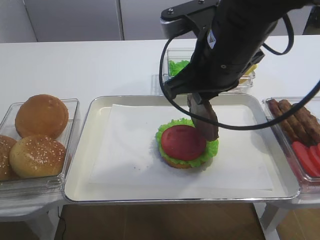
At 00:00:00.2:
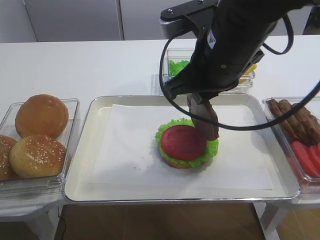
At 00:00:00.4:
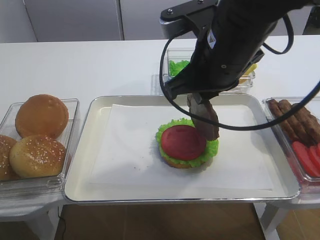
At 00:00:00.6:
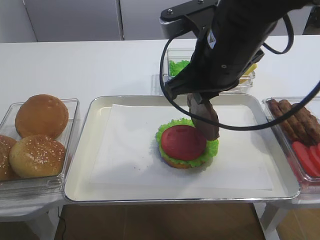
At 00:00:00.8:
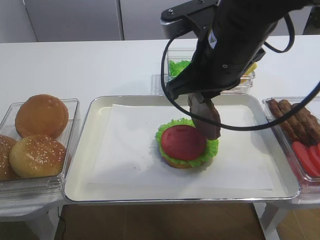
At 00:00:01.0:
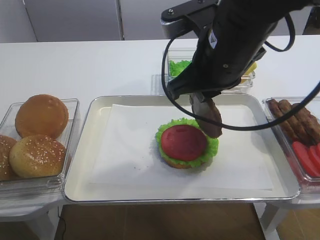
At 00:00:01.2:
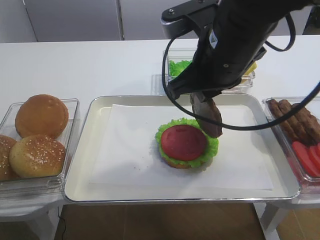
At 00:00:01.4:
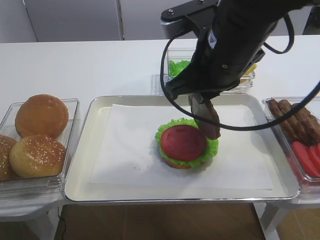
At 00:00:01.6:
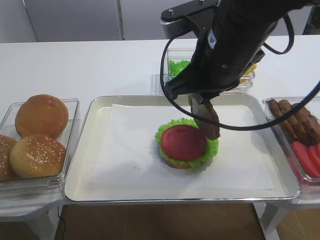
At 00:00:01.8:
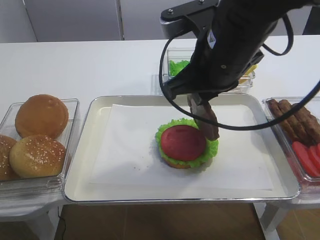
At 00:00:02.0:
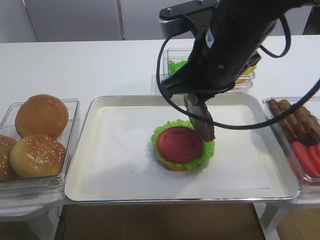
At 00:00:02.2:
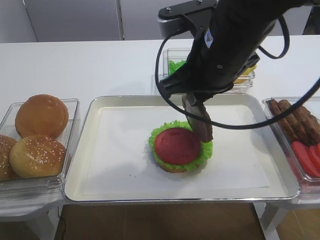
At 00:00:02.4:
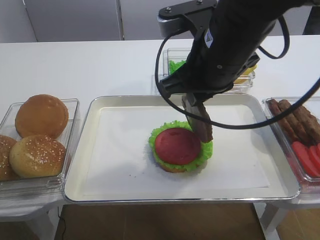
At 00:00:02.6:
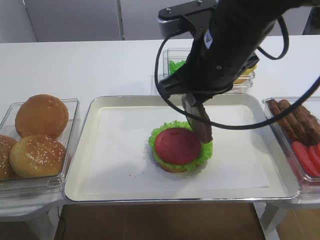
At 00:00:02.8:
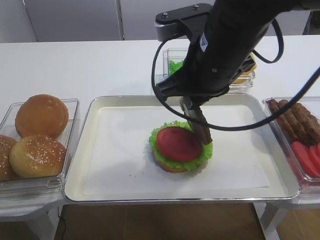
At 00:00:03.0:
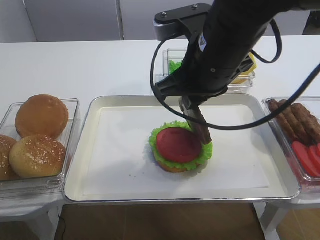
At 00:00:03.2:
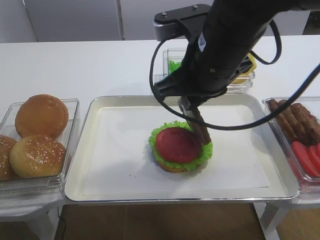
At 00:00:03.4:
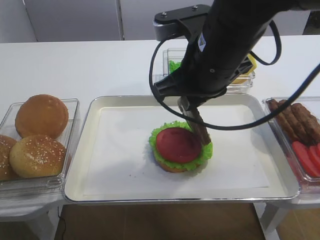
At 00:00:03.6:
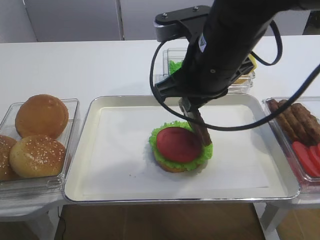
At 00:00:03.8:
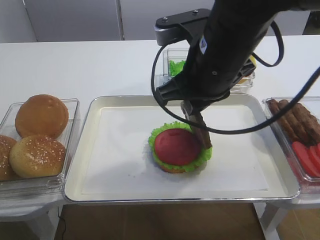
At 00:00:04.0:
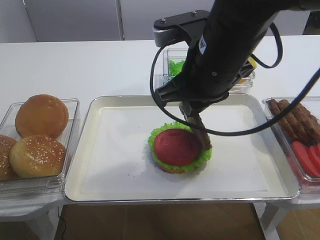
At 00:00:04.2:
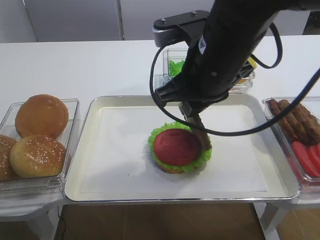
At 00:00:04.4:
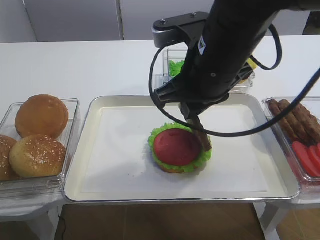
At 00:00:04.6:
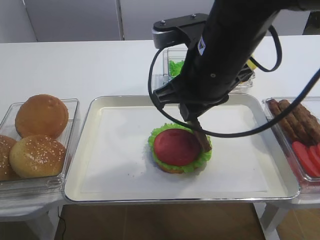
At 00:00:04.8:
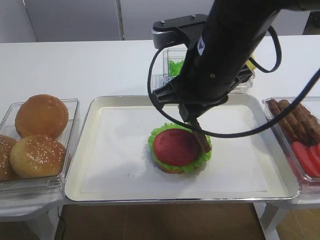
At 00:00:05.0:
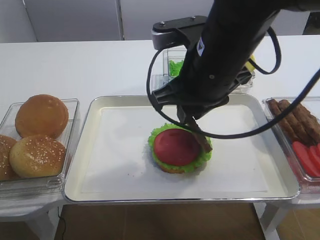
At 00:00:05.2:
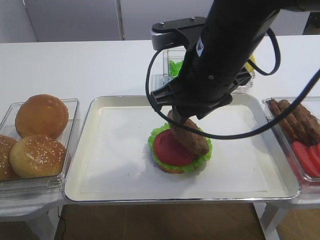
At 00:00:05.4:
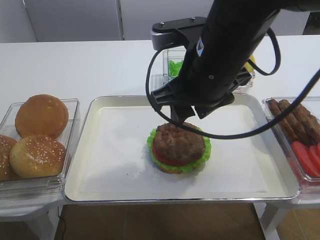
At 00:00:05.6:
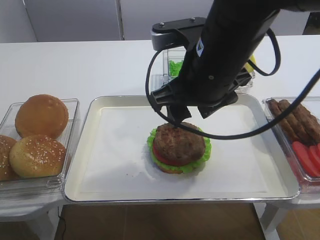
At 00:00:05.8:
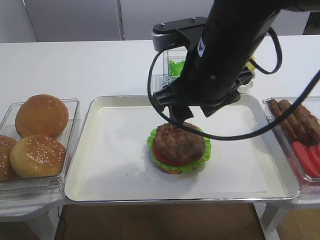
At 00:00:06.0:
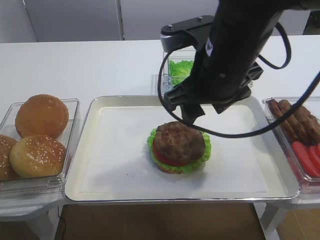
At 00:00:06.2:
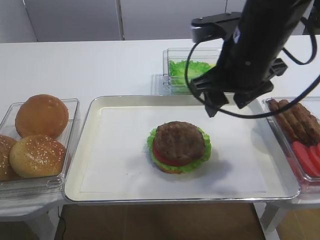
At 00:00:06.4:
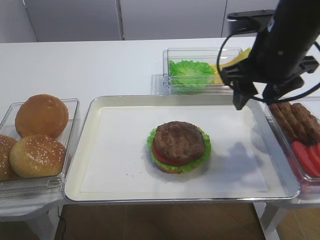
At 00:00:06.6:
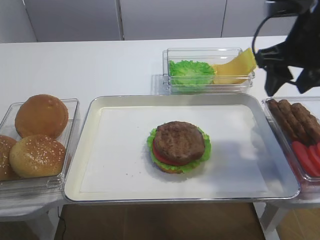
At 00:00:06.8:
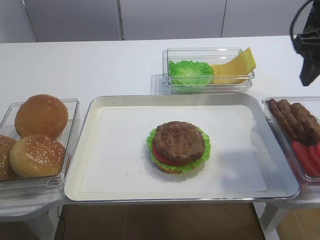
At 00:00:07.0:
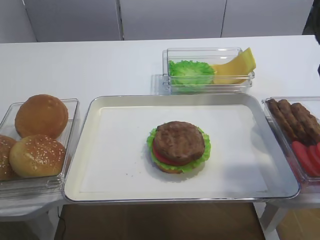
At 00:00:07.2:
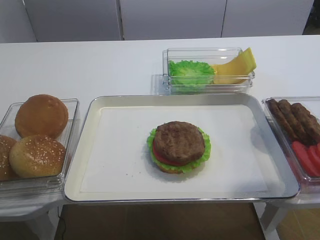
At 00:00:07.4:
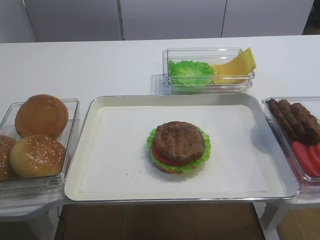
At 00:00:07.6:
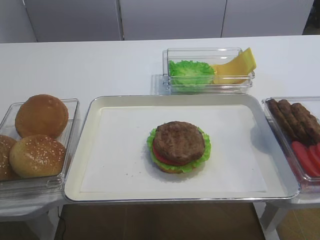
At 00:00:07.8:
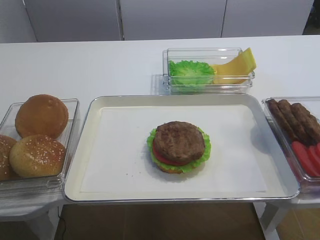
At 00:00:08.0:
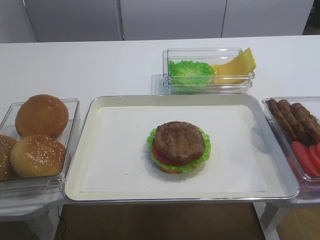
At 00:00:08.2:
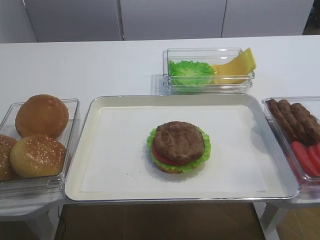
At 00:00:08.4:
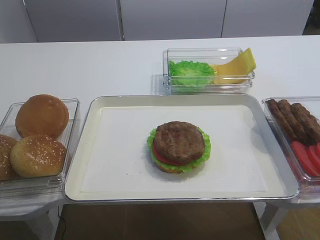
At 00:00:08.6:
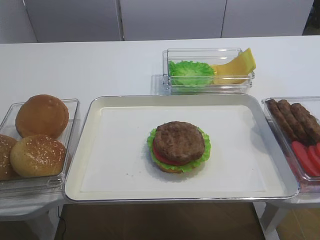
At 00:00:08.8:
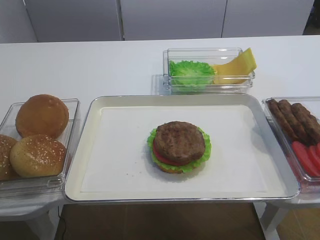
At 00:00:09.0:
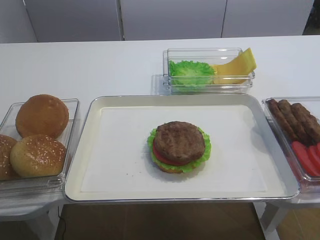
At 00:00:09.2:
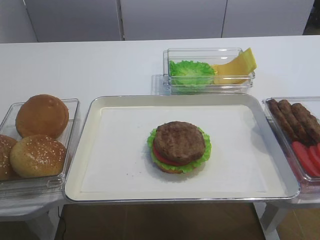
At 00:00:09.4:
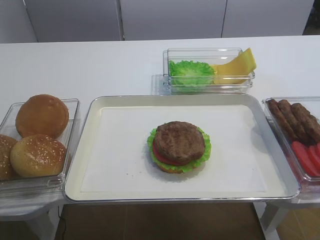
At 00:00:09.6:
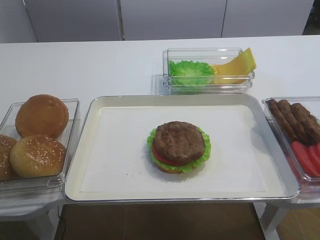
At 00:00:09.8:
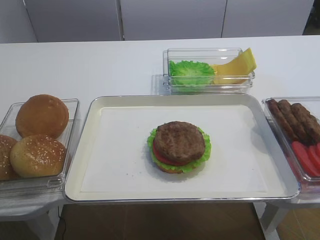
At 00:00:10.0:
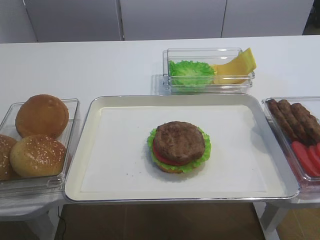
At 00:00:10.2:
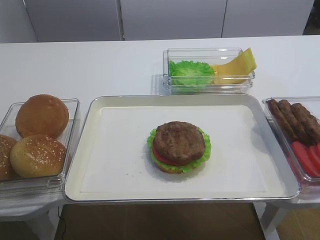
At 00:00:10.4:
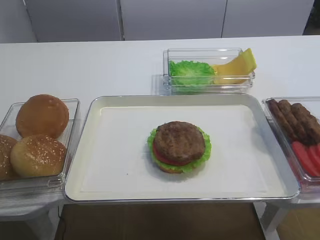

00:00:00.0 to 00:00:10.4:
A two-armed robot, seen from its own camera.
Step, 00:00:00.0 to 00:00:05.8: Place the cutlet on the tomato slice with the right gripper.
00:00:00.0 to 00:00:01.4: Both grippers stay about where they are.
00:00:01.4 to 00:00:03.0: The grippers move only a little.
00:00:03.0 to 00:00:04.4: Neither gripper changes place.
00:00:04.4 to 00:00:06.0: The right gripper opens up.
00:00:06.0 to 00:00:07.4: The right gripper is displaced to the right by approximately 20 cm.
00:00:07.4 to 00:00:09.0: The right gripper shifts roughly 20 cm backward.
00:00:09.0 to 00:00:10.4: Both grippers stay about where they are.

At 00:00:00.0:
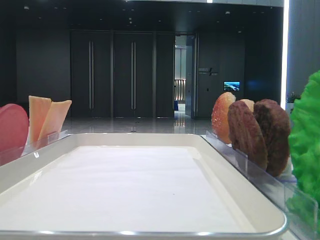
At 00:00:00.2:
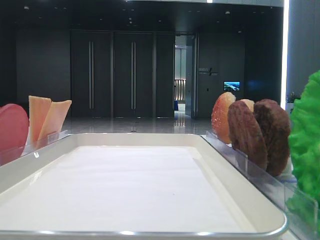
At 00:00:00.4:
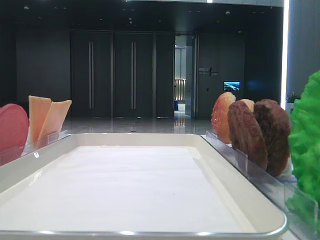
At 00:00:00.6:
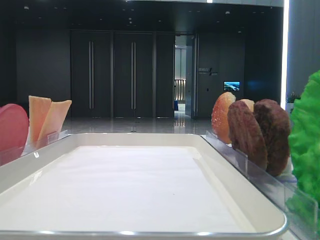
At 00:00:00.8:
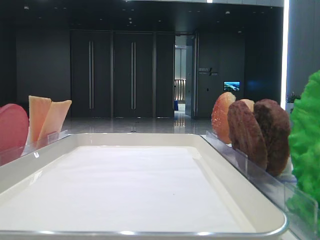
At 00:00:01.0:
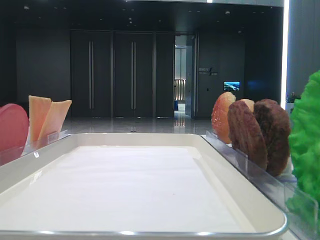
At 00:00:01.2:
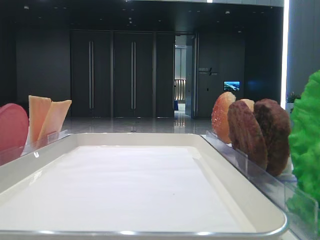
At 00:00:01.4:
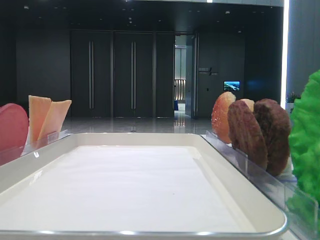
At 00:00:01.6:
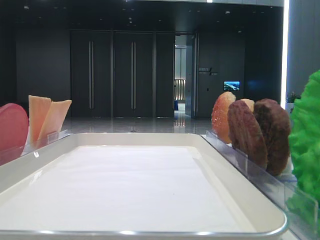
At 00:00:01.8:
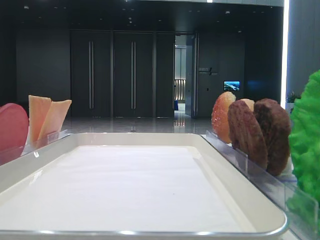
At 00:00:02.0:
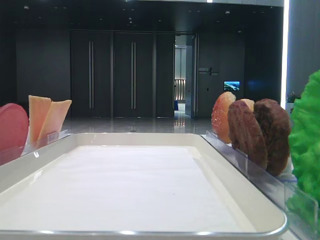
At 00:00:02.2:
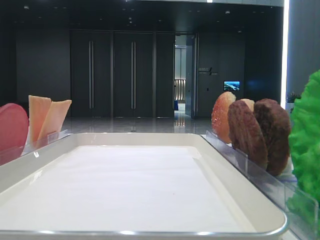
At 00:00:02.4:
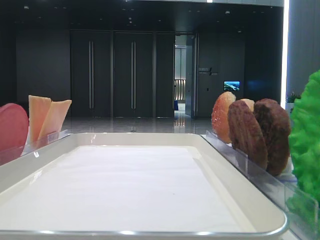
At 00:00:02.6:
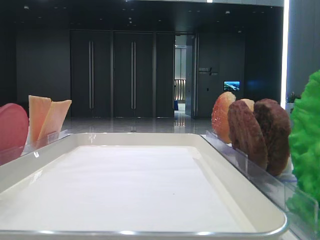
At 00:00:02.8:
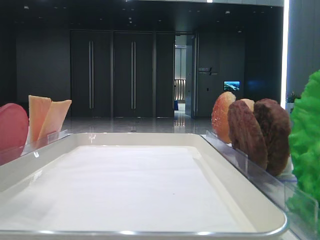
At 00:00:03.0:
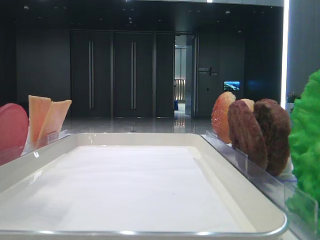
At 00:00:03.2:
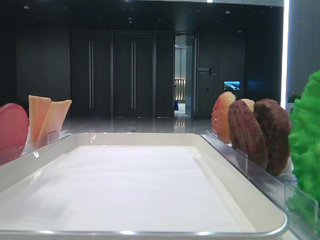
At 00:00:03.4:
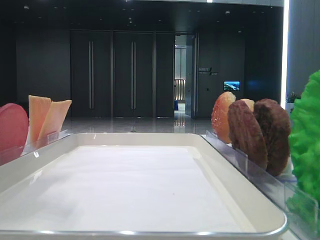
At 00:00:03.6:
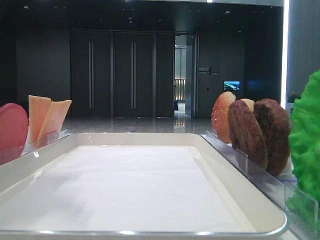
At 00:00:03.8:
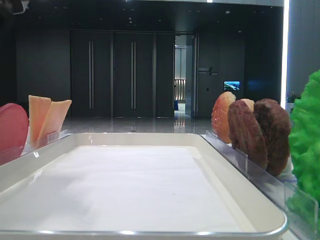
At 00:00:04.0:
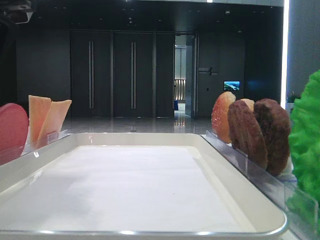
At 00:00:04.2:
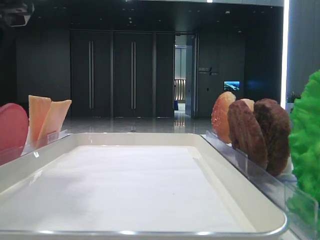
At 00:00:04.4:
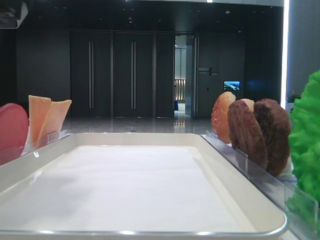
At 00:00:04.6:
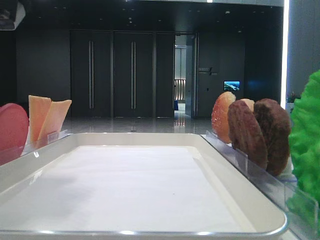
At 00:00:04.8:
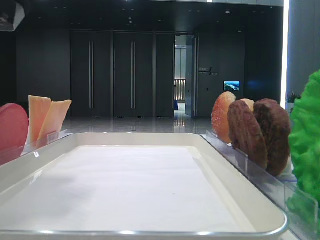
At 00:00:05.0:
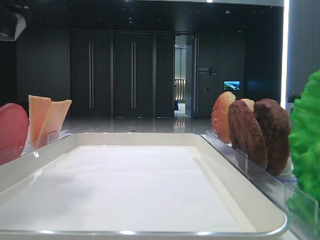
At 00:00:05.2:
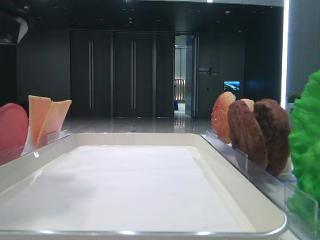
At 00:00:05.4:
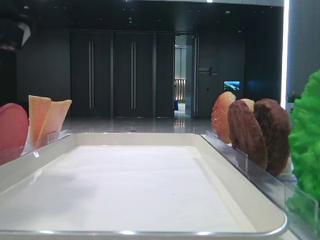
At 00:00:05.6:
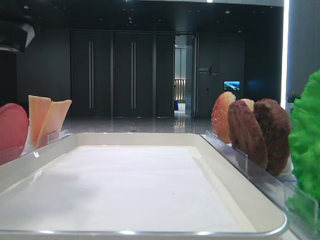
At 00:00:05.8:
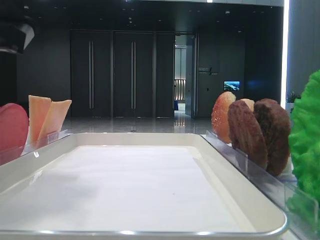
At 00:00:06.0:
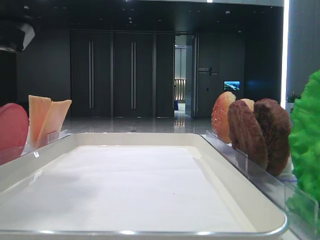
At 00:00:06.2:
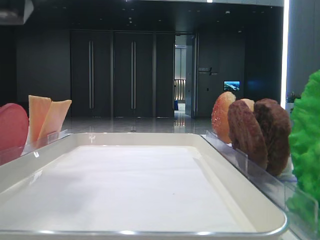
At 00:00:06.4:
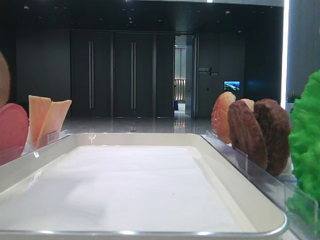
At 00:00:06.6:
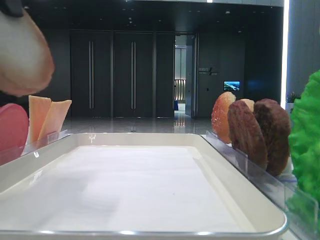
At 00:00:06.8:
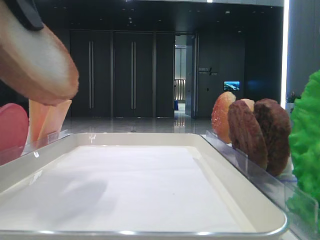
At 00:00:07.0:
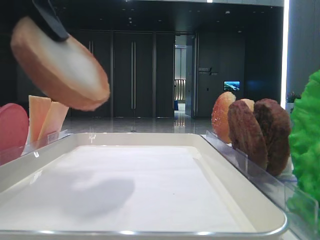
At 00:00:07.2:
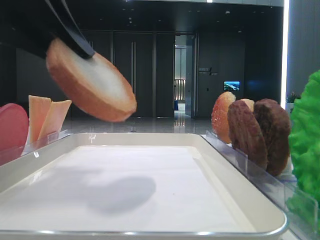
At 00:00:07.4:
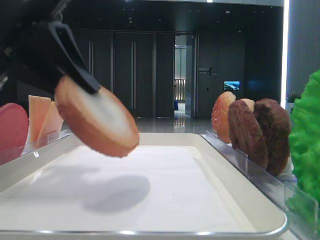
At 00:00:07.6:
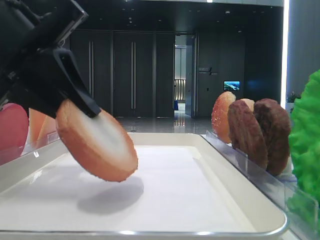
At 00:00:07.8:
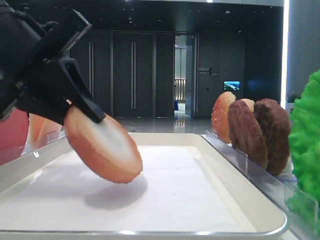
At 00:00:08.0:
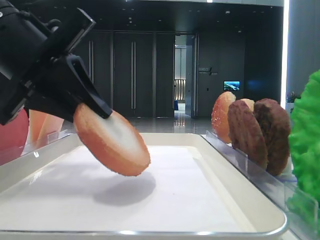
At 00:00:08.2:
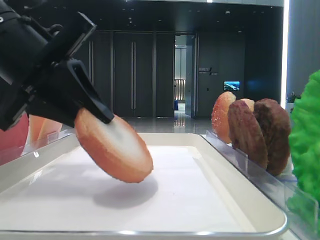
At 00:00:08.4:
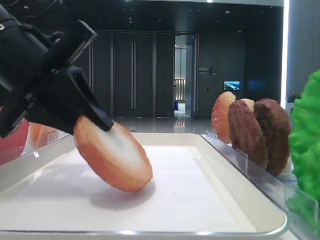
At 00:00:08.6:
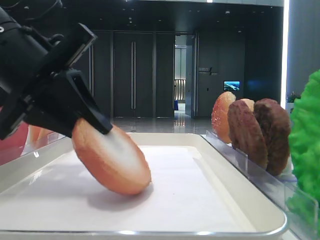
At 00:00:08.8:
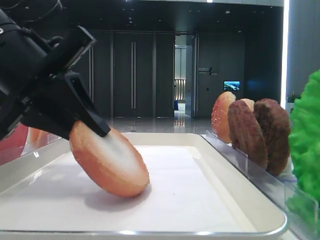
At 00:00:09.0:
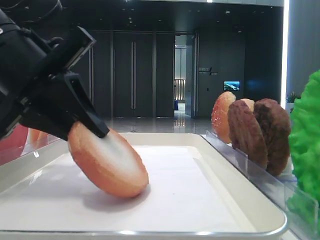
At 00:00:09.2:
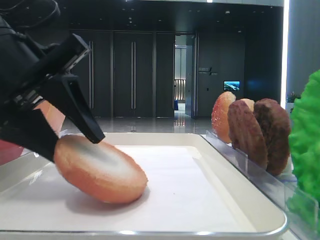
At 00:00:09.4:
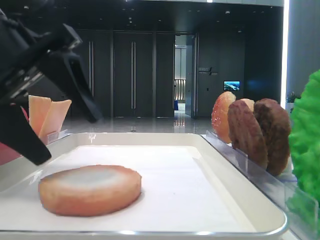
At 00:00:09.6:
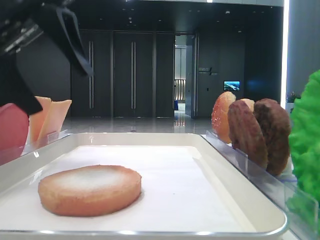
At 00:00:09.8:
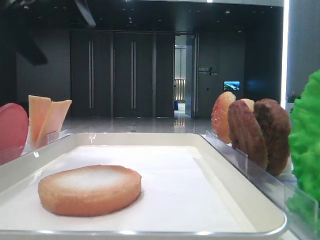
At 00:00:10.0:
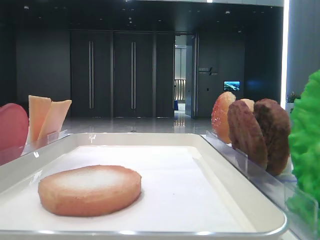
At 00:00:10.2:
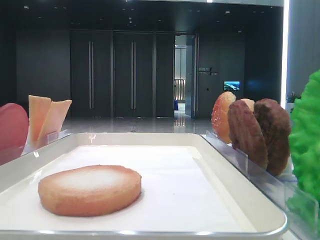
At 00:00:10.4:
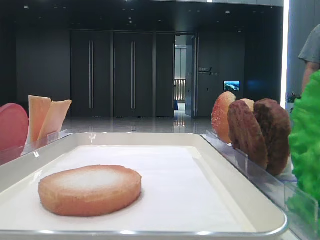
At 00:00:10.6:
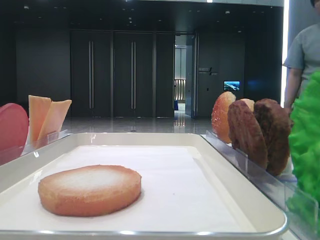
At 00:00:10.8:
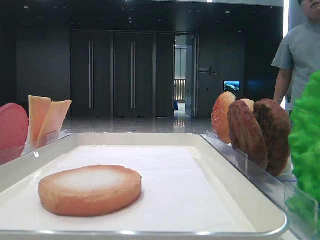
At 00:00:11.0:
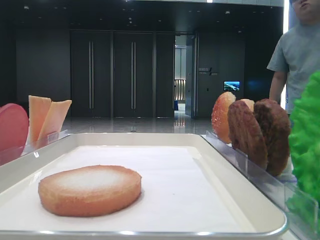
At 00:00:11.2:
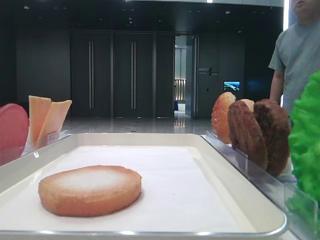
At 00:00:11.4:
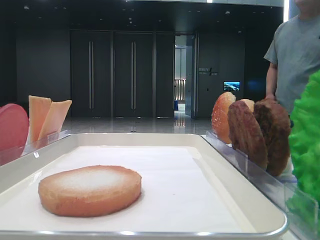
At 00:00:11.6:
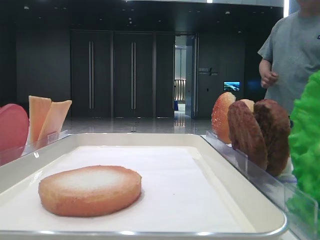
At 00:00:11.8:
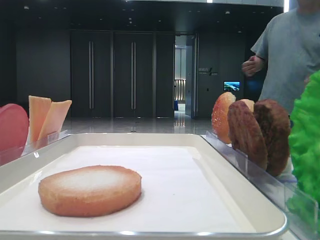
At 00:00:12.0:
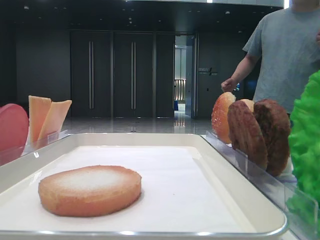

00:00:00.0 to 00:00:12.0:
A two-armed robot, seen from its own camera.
Step, 00:00:00.0 to 00:00:09.2: Pick up the bread slices and place them on the tray with the left gripper.
00:00:01.6 to 00:00:03.0: The left gripper heads to the right, covering approximately 10 cm.
00:00:03.0 to 00:00:04.4: The left gripper shifts some 5 cm downward.
00:00:04.4 to 00:00:06.0: The left gripper closes.
00:00:06.0 to 00:00:07.6: The left gripper travels upward and back again, roughly 10 cm each way.
00:00:07.6 to 00:00:09.0: The grippers stay close to where they were, moving slightly.
00:00:09.0 to 00:00:10.4: The left gripper goes roughly 25 cm upward and to the left, and opens.
